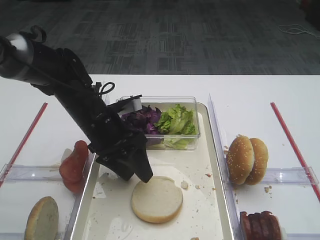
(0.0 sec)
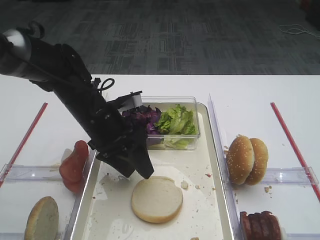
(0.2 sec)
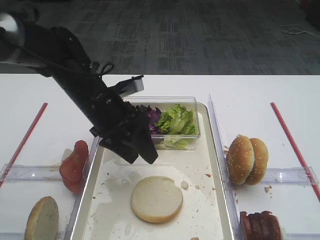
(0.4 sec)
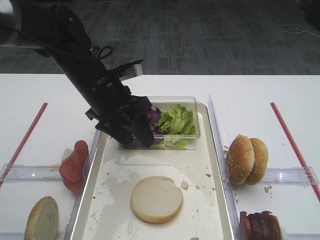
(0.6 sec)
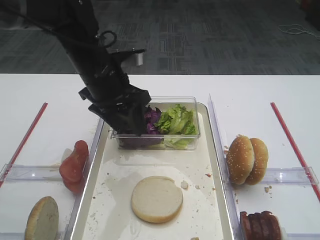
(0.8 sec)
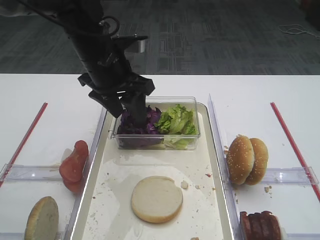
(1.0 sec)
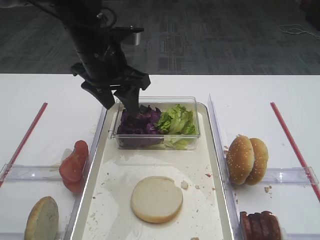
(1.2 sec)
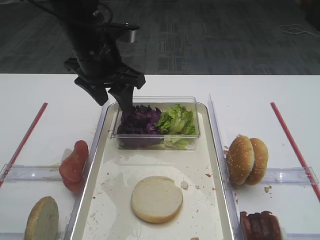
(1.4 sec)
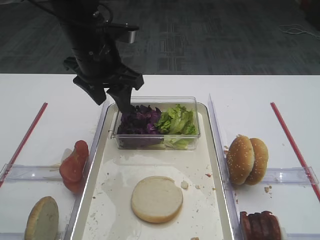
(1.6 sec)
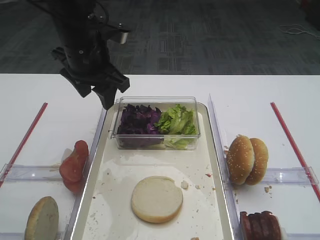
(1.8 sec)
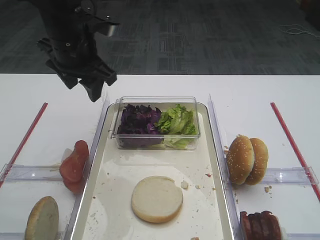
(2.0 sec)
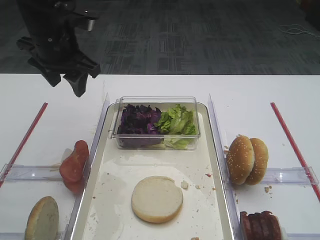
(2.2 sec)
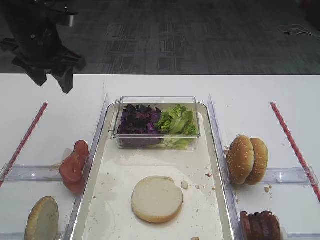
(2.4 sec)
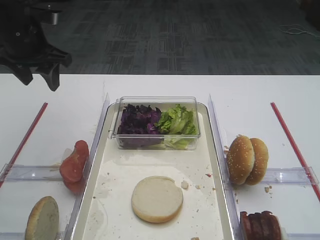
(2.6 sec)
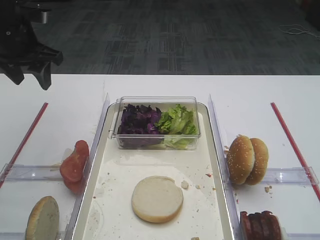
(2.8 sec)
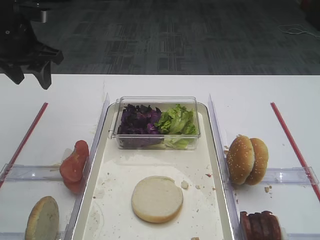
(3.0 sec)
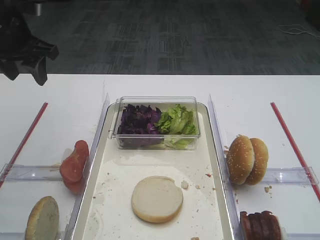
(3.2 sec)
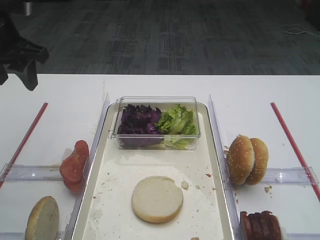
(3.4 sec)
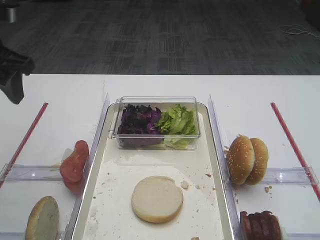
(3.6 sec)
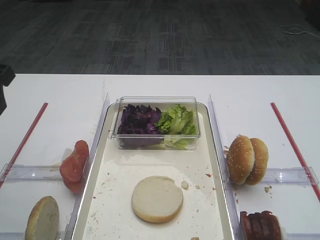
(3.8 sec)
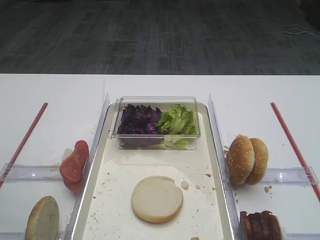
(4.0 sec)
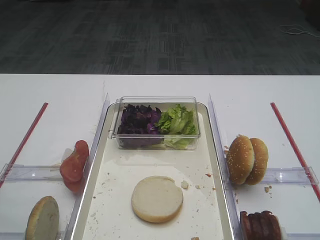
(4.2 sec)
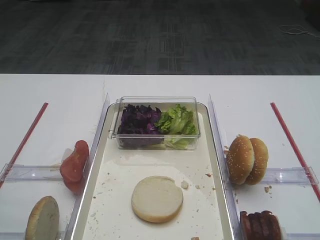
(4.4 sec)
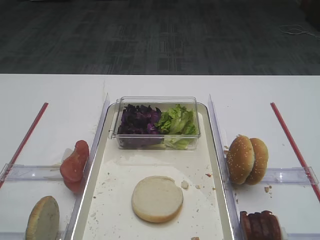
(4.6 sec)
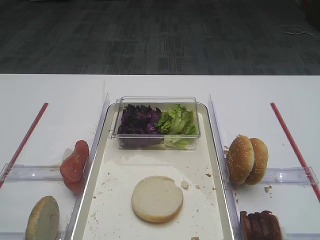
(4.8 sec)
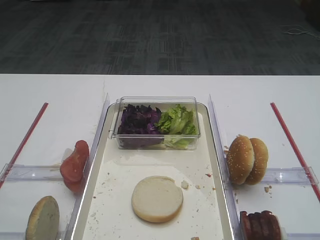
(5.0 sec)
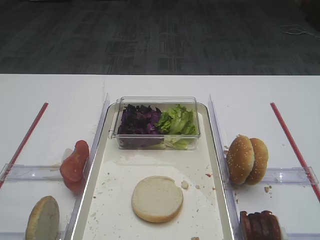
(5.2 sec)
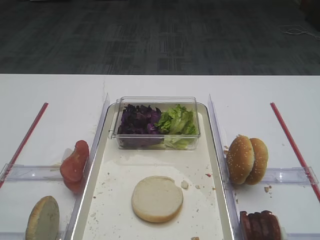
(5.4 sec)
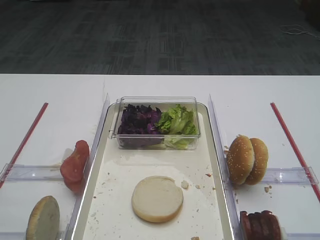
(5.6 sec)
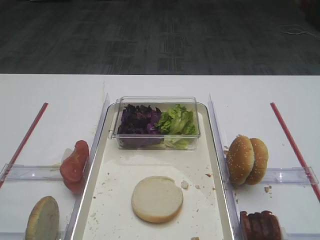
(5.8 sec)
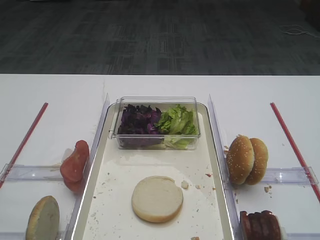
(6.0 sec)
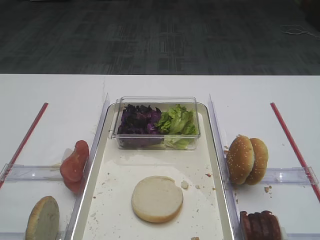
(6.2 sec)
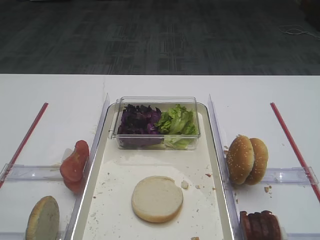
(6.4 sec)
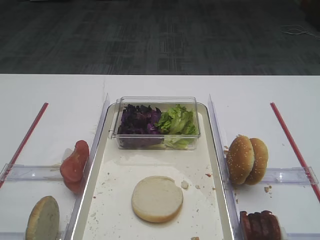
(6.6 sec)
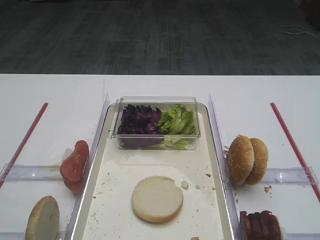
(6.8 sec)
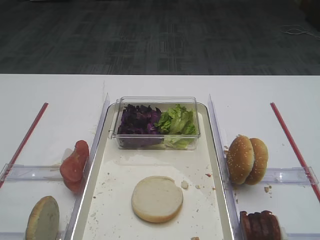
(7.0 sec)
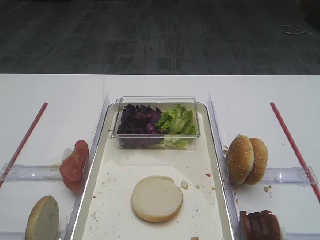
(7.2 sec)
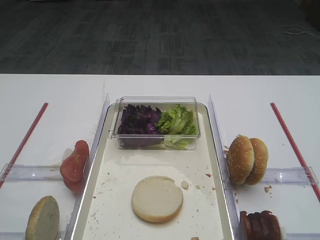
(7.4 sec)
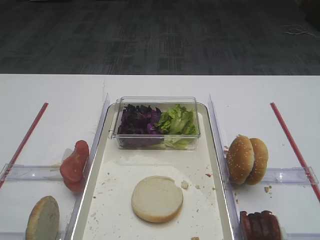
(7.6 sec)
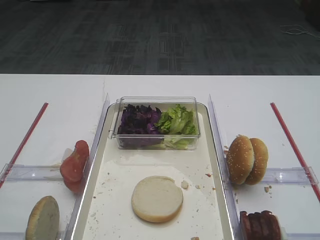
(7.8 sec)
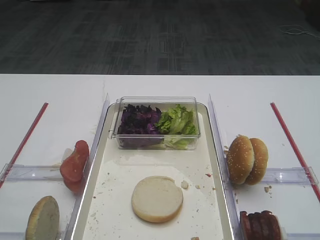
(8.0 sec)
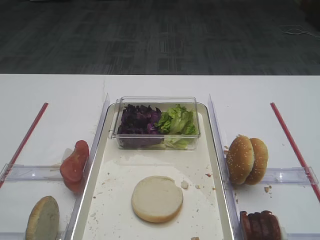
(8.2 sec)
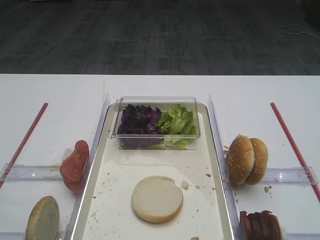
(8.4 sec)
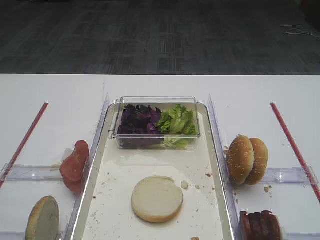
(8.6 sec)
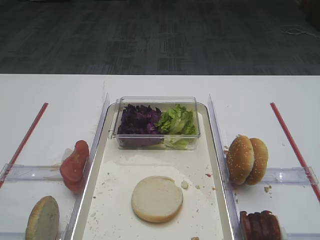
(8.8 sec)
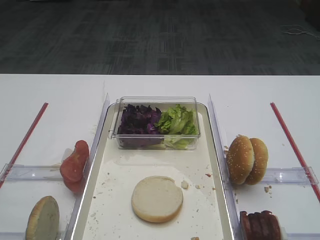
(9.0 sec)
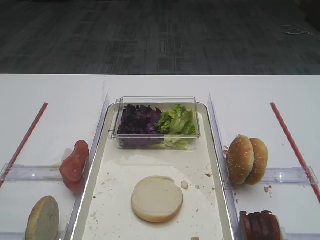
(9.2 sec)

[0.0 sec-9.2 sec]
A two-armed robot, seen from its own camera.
0.0 sec to 1.6 sec: The left gripper shifts some 10 cm upward.
1.6 sec to 3.0 sec: The left gripper travels to the left by some 15 cm.
3.0 sec to 4.6 sec: The left gripper travels backward by approximately 35 cm.
6.2 sec to 9.2 sec: Neither gripper changes place.
